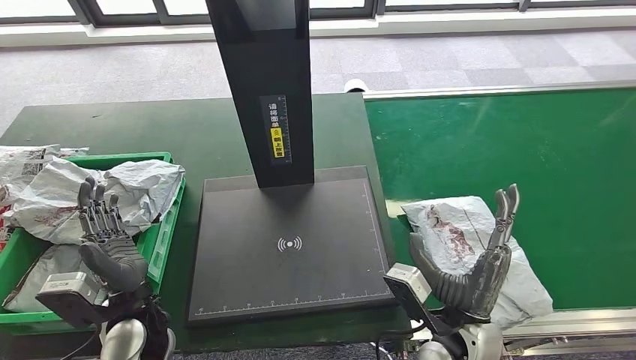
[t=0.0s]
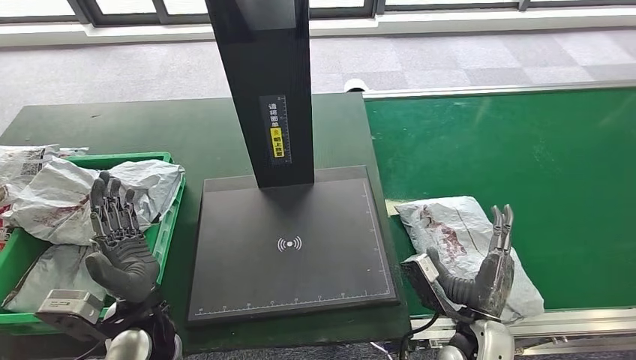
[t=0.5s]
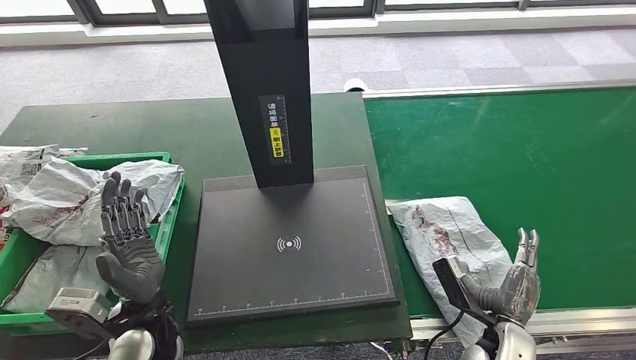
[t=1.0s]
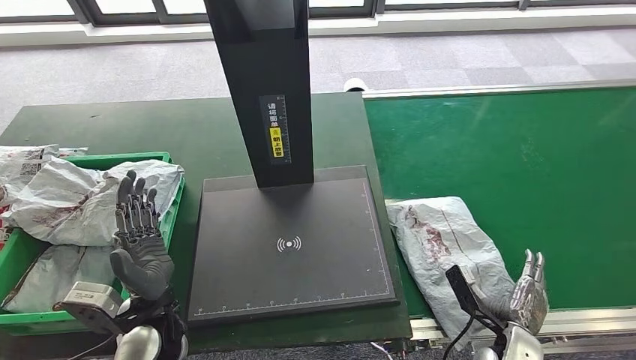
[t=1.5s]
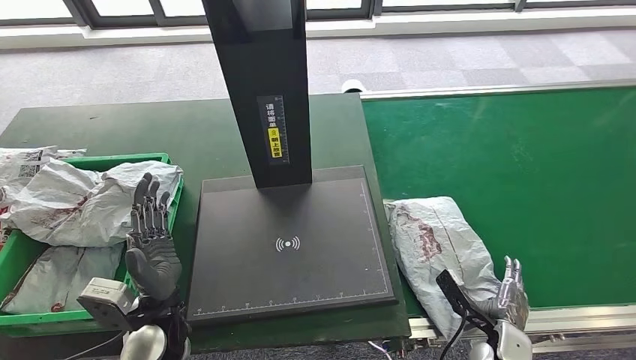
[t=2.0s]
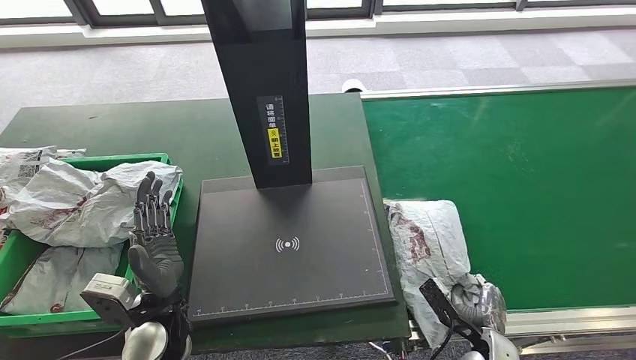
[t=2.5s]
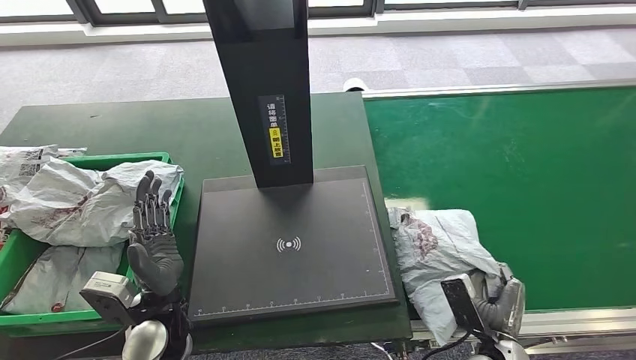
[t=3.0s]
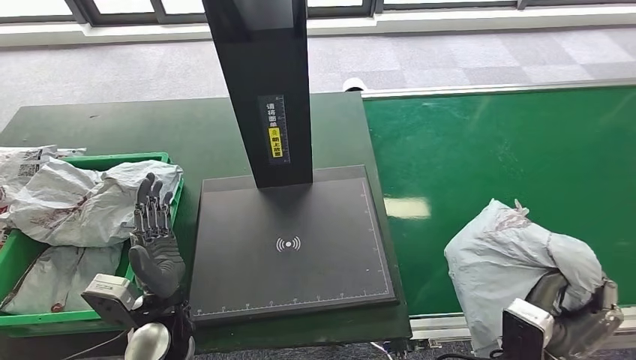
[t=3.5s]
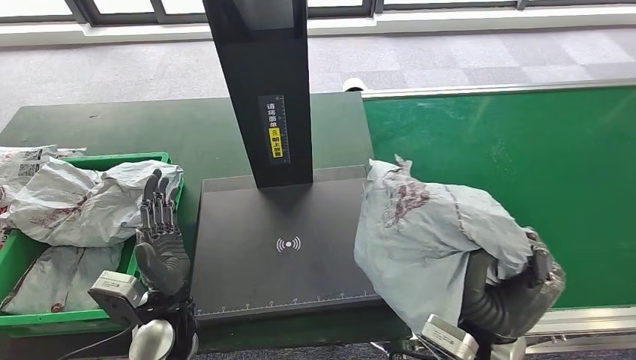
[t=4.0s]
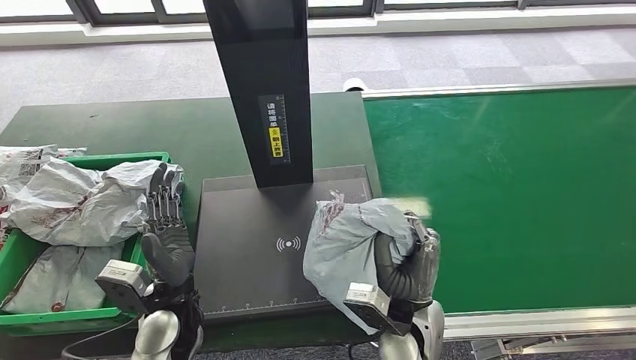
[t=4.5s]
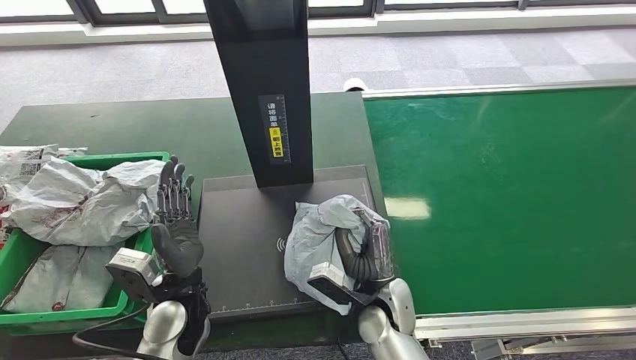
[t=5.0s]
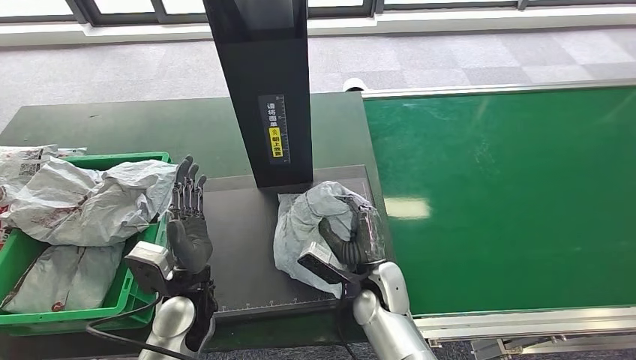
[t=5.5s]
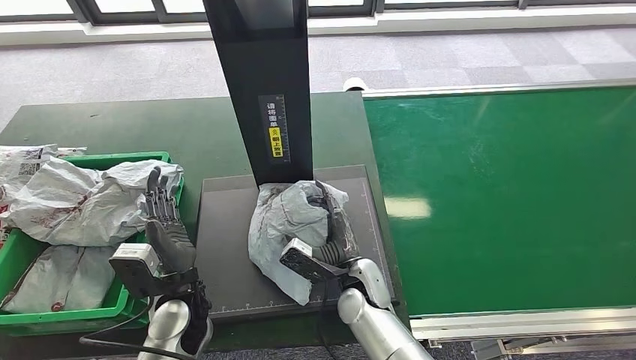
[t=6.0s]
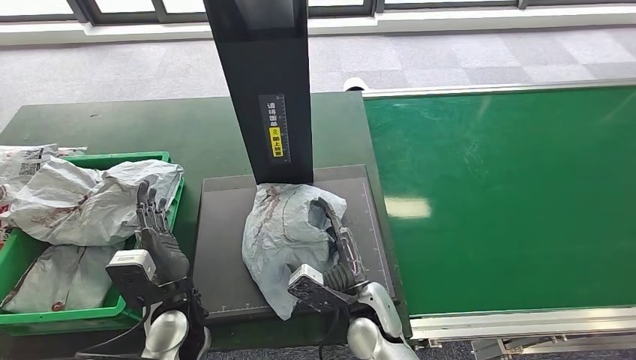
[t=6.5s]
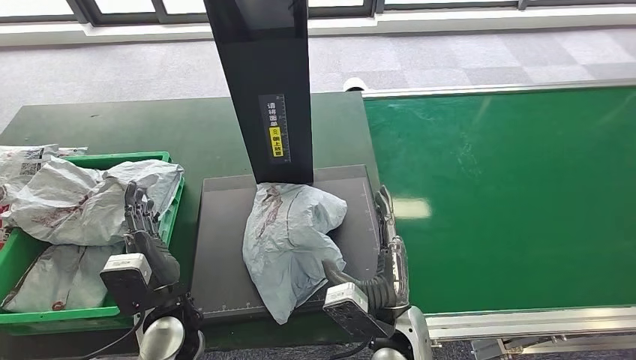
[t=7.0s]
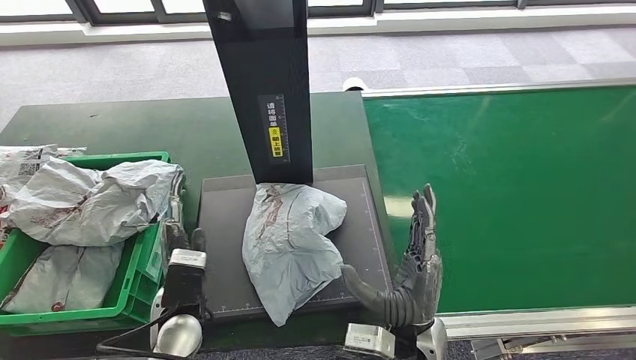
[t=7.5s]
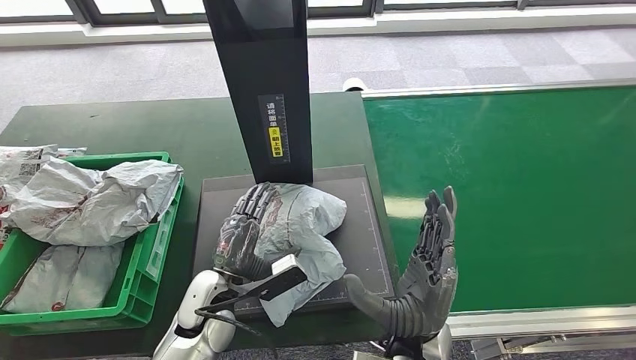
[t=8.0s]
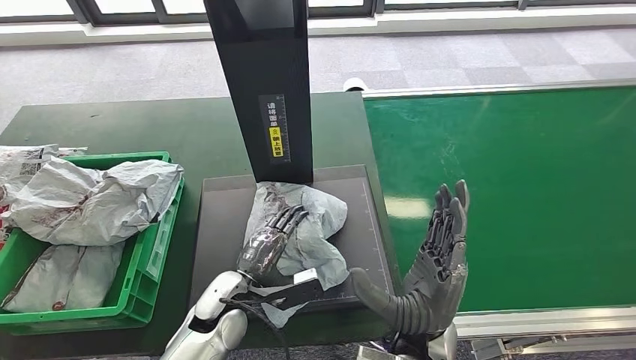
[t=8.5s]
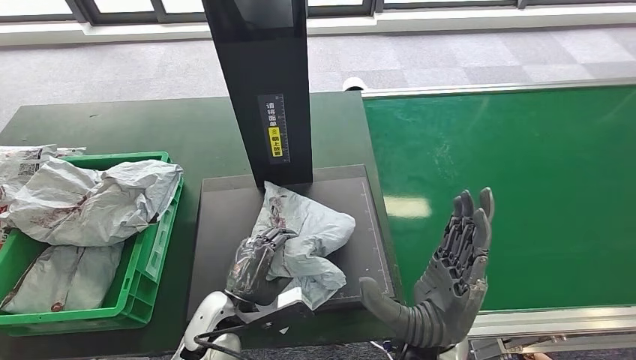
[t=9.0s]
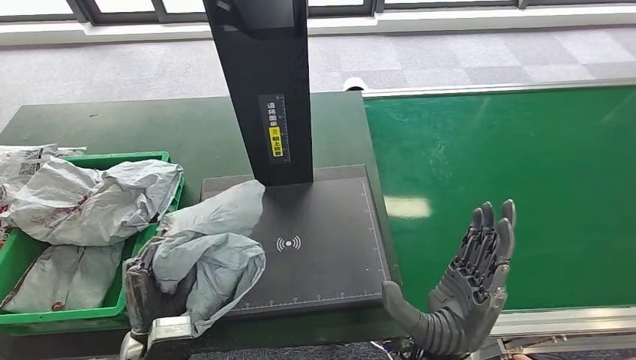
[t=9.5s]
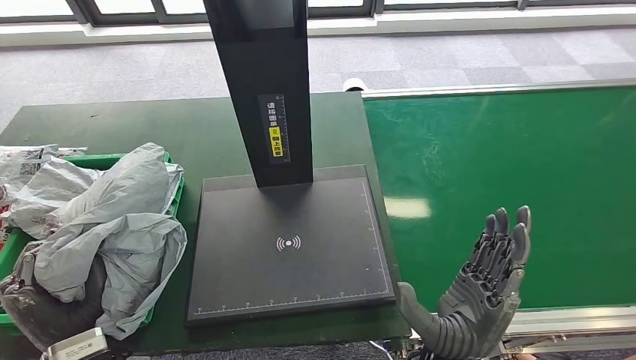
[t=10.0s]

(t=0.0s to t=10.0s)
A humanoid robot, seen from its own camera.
Step, t=0.5s - t=3.5s: Pick up the parcel from the conveyor belt.
Step, t=4.0s - t=6.5s: Place the parcel onto the inbound machine.
t=6.0s - t=8.0s: The right hand heads backward, upward and to the right, covering approximately 15 cm.
t=8.0s - t=10.0s: The left hand goes approximately 15 cm to the left, backward and upward.

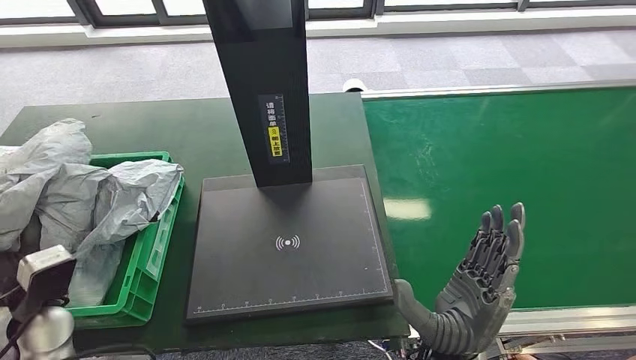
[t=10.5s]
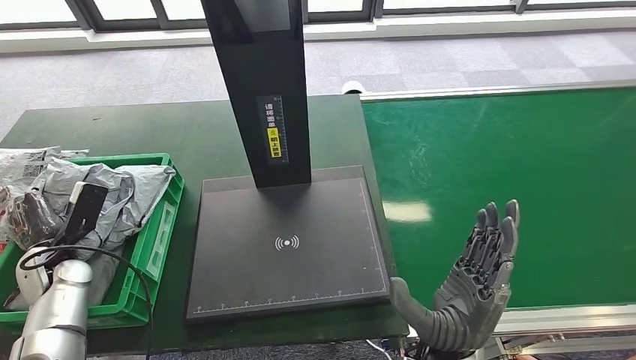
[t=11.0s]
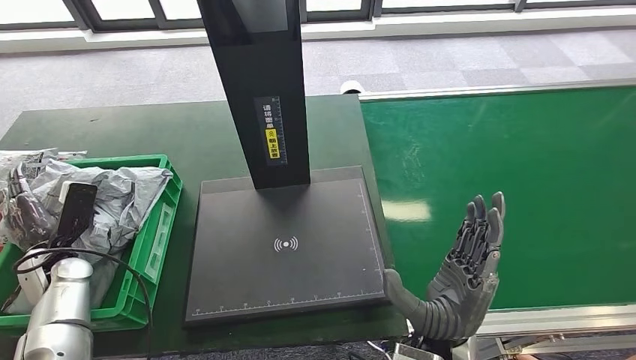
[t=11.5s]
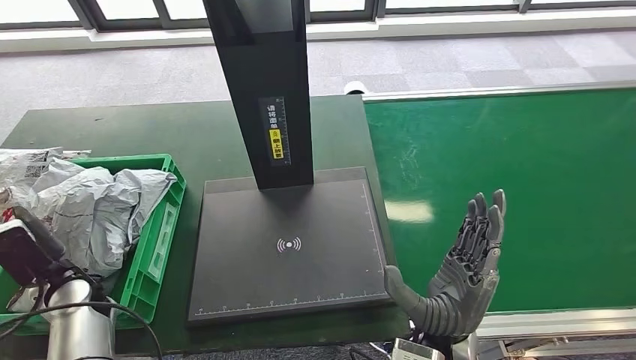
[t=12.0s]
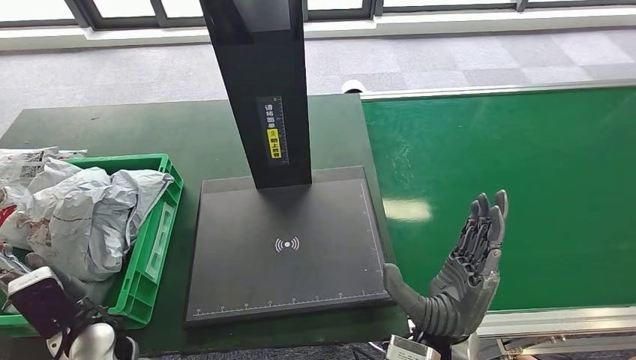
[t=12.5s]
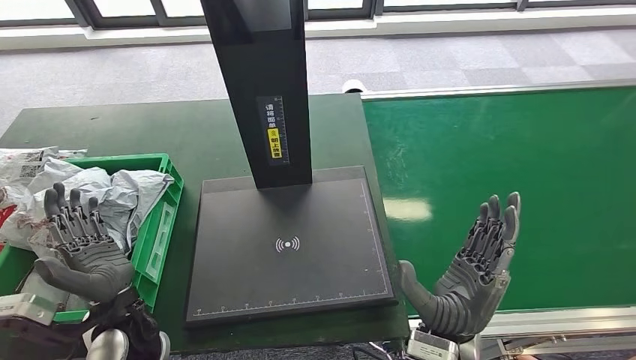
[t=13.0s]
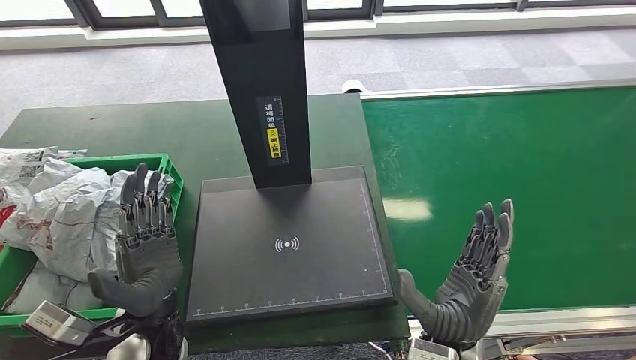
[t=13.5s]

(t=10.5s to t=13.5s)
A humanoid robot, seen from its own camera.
Step, t=11.0s - t=13.5s: Place the parcel into the delivery box.

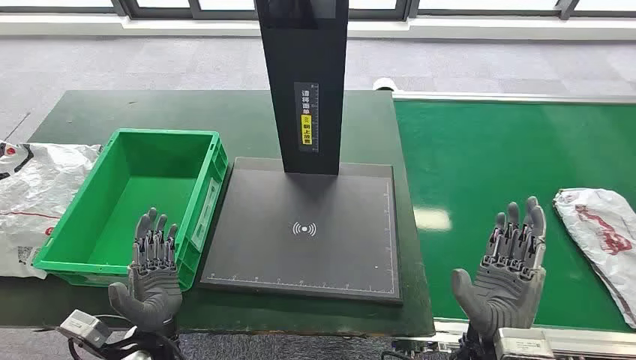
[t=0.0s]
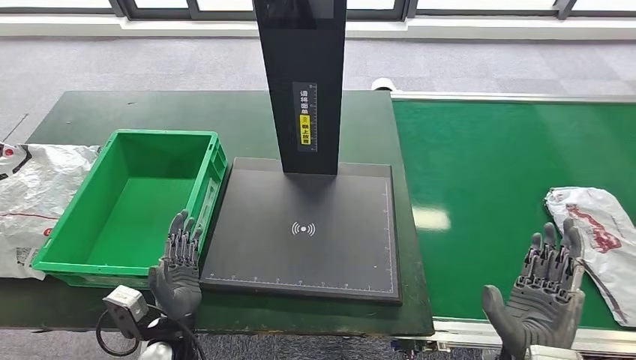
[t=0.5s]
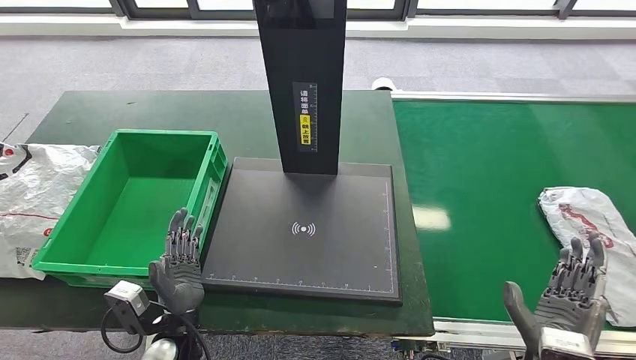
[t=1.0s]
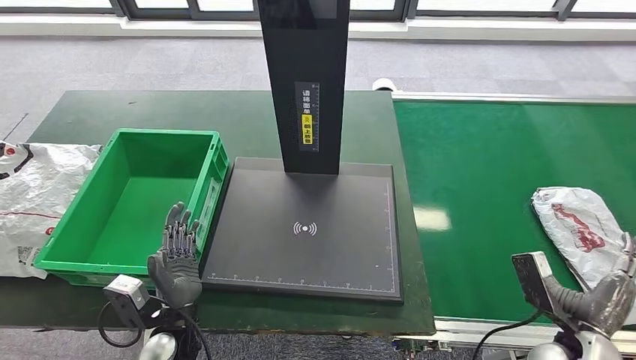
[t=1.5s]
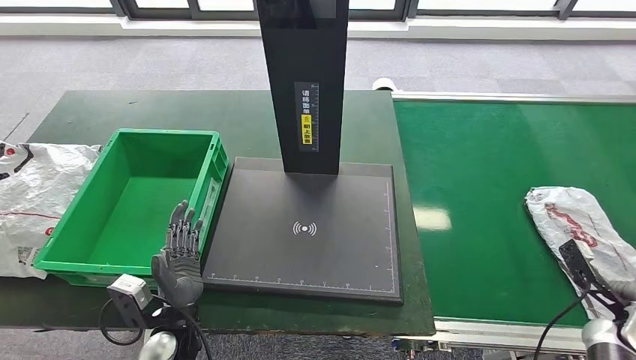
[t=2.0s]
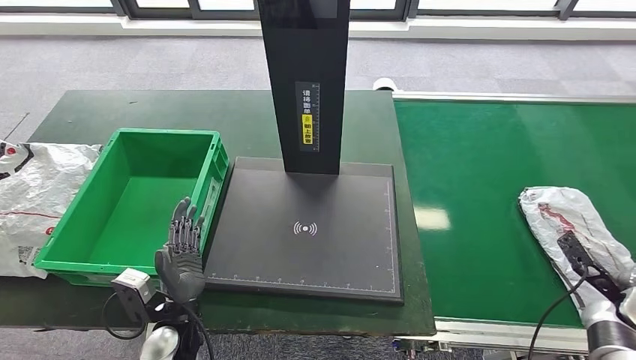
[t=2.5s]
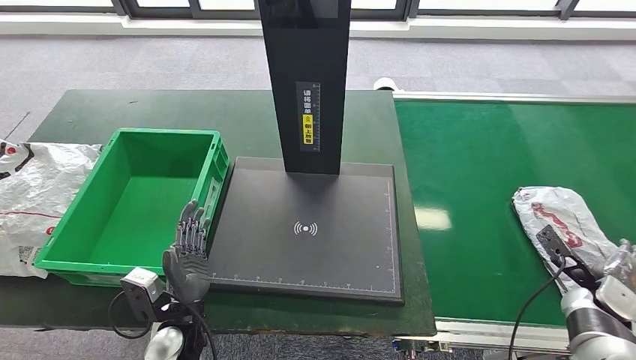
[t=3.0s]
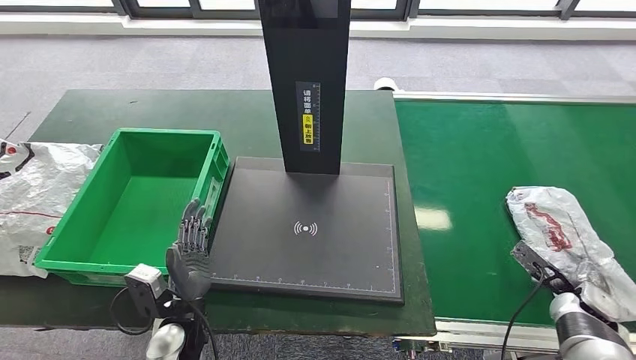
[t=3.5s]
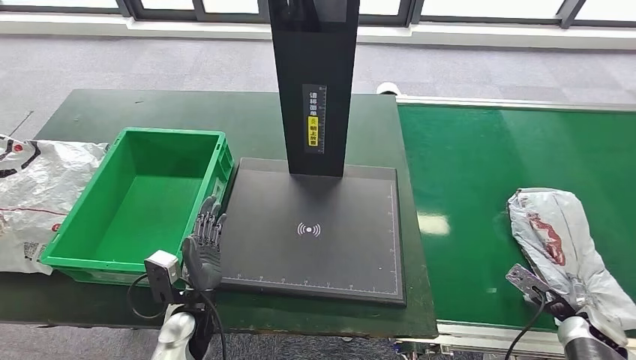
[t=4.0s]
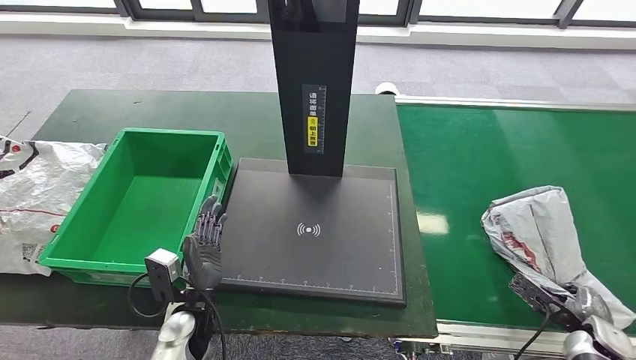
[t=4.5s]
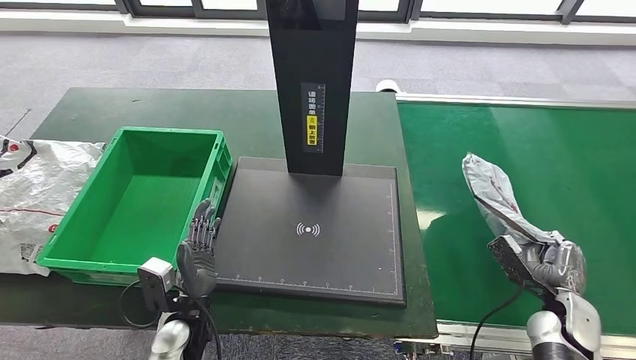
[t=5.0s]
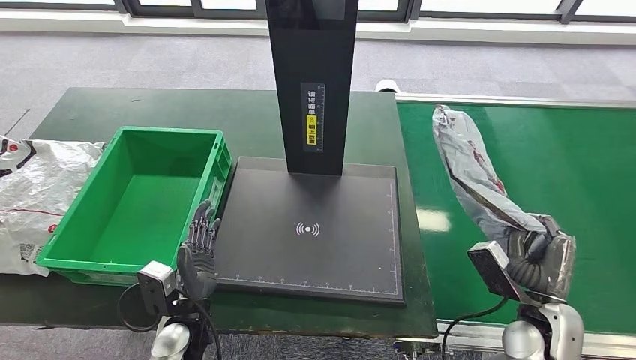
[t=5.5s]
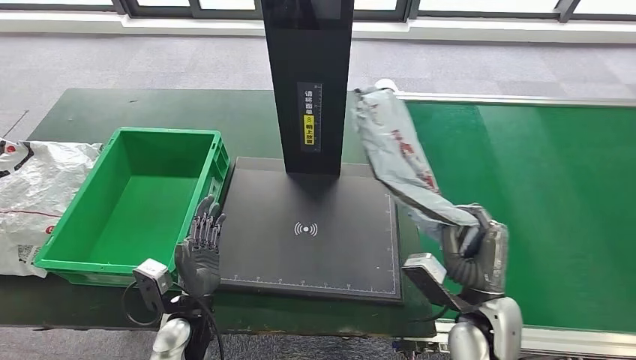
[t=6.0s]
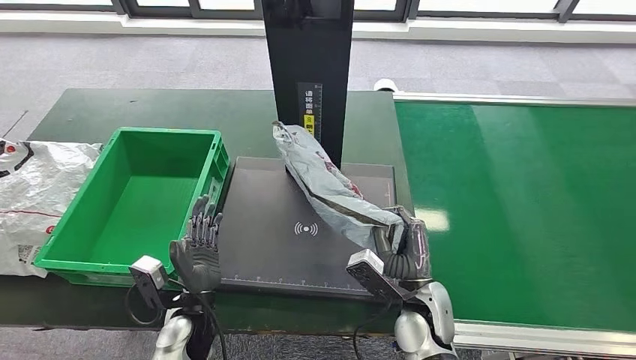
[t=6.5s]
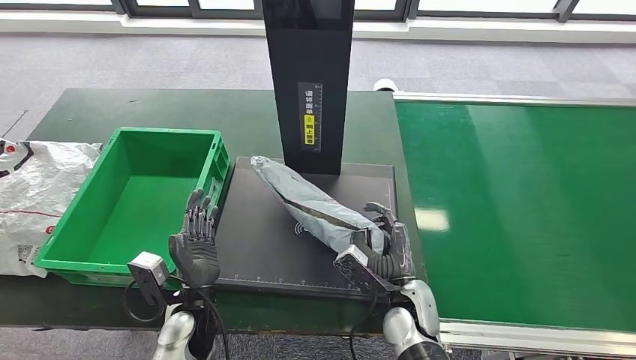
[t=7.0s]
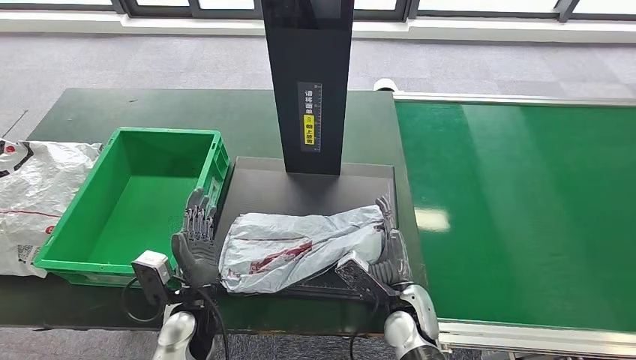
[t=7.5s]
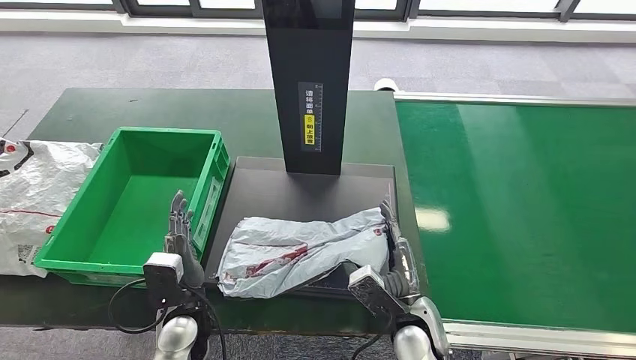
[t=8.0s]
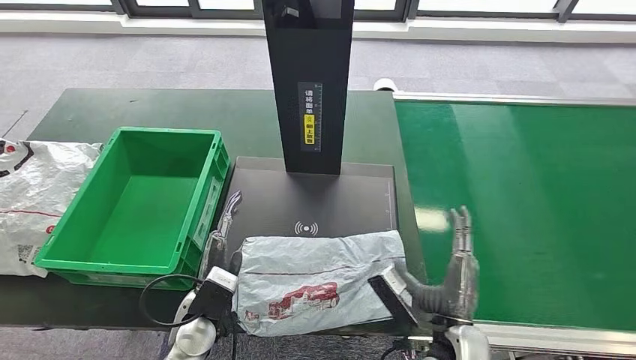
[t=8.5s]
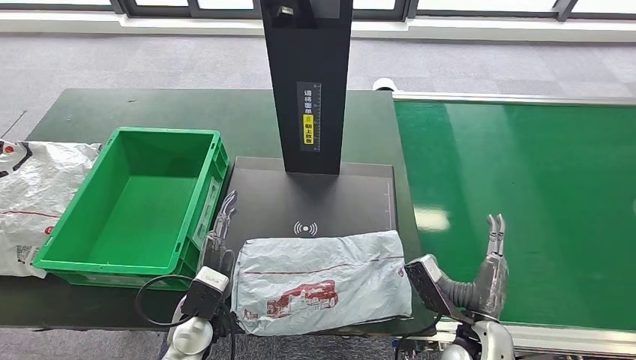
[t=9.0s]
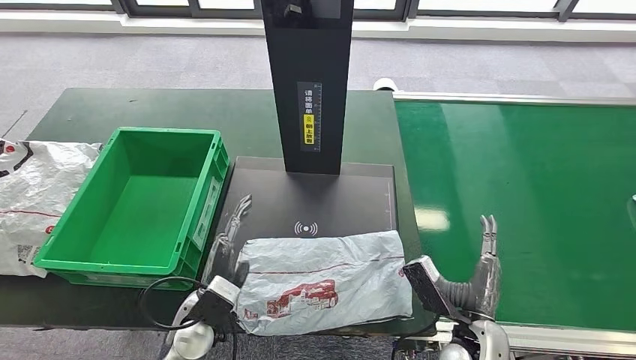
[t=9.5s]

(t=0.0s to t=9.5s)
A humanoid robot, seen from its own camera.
Step, t=0.0s - t=5.5s: Take the parcel off the conveyor belt.
Step, t=6.0s - t=8.0s: Place the parcel onto the inbound machine.
t=7.5s - t=9.5s: The right hand goes roughly 10 cm to the right and backward.
